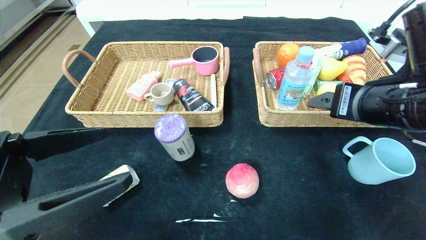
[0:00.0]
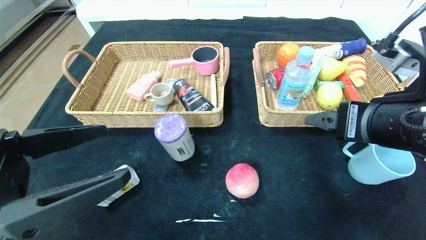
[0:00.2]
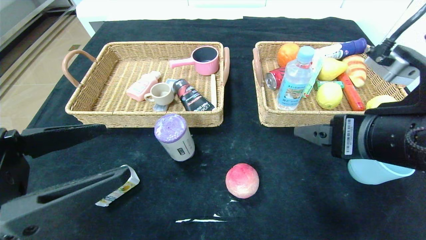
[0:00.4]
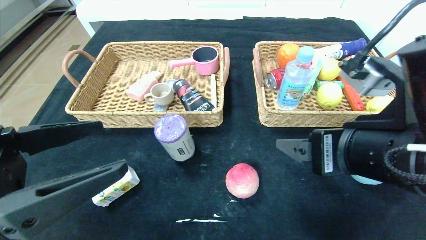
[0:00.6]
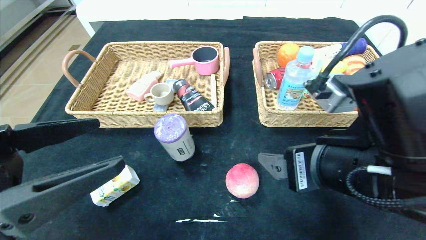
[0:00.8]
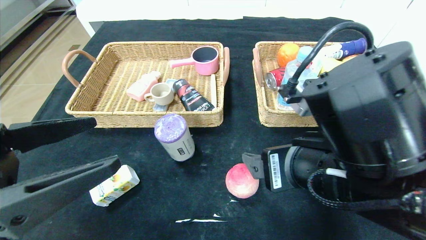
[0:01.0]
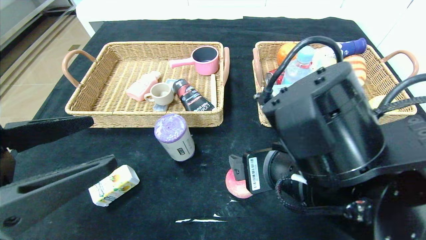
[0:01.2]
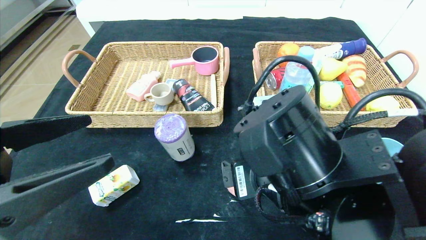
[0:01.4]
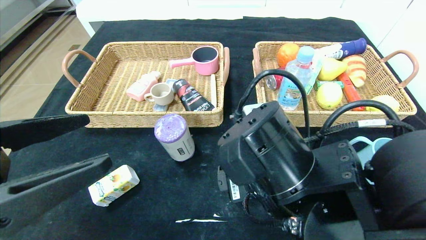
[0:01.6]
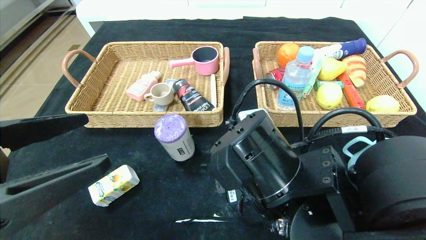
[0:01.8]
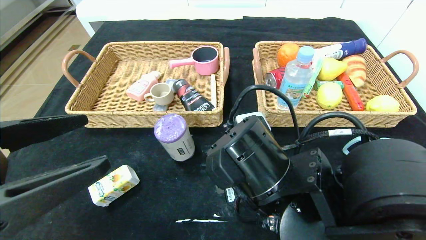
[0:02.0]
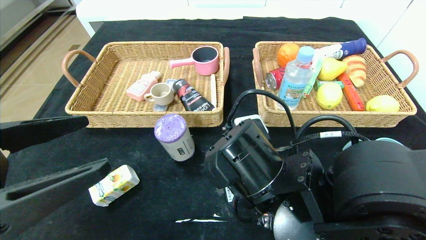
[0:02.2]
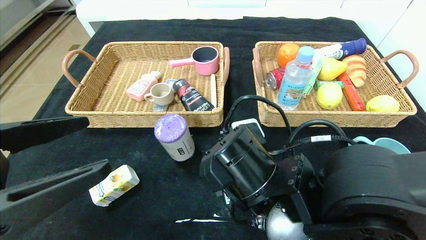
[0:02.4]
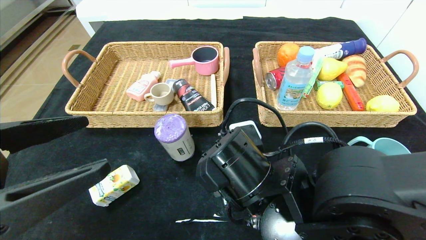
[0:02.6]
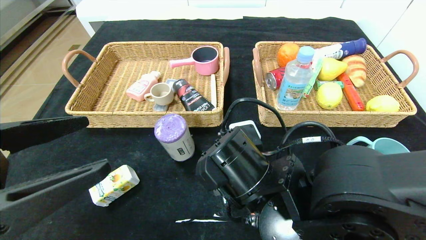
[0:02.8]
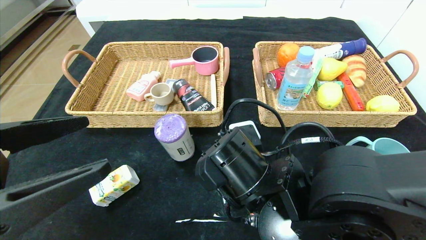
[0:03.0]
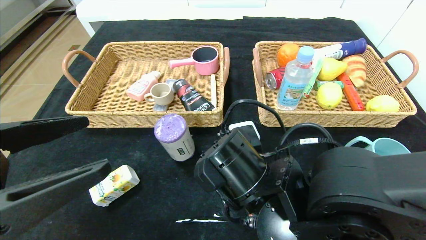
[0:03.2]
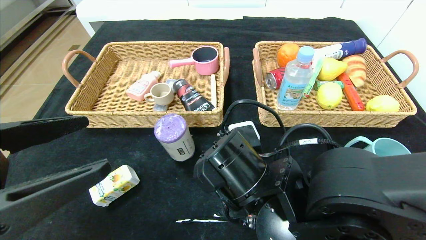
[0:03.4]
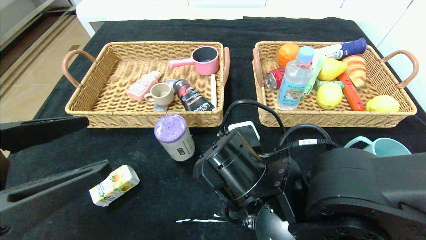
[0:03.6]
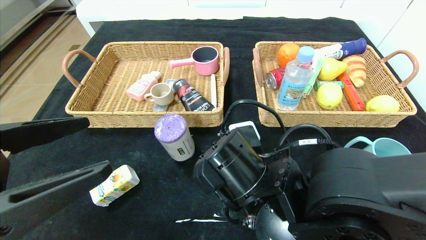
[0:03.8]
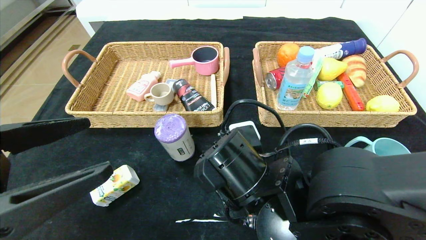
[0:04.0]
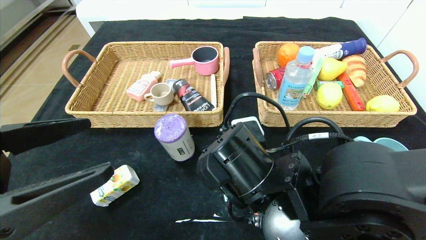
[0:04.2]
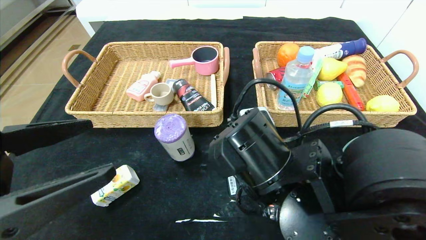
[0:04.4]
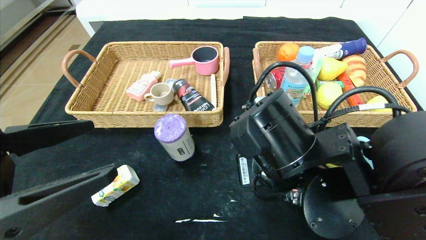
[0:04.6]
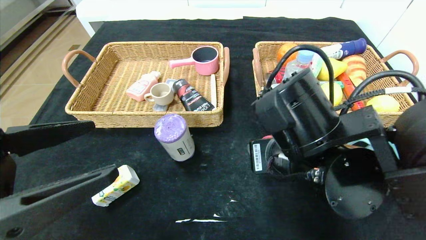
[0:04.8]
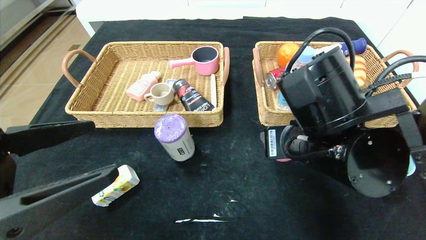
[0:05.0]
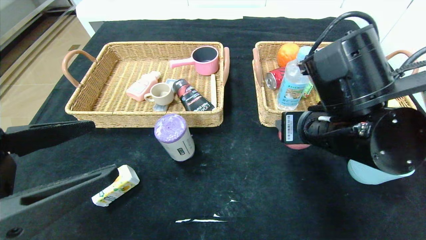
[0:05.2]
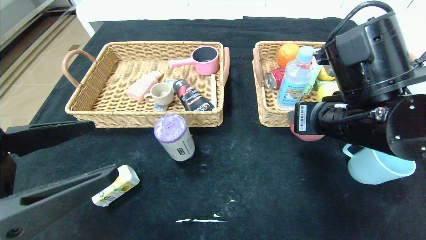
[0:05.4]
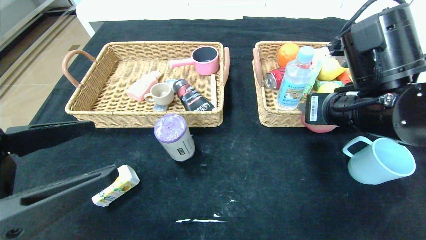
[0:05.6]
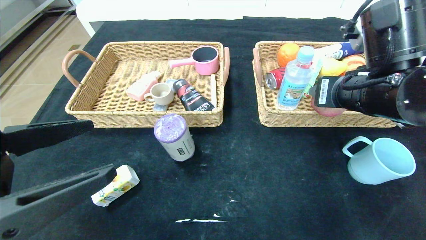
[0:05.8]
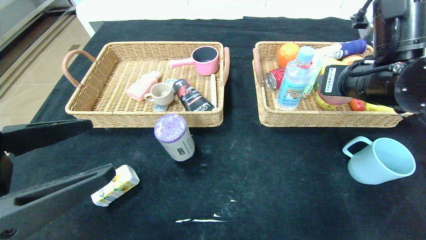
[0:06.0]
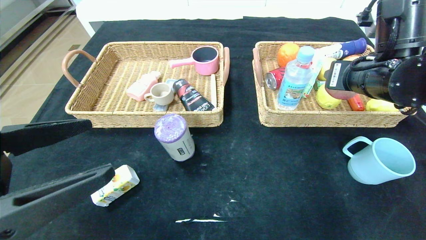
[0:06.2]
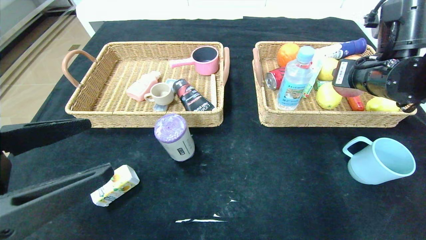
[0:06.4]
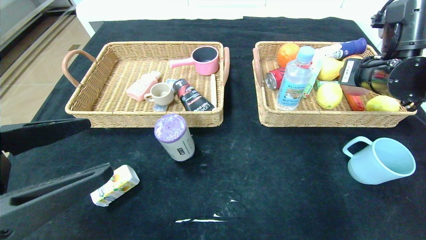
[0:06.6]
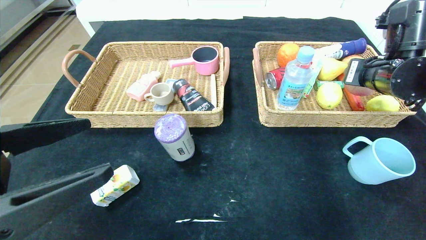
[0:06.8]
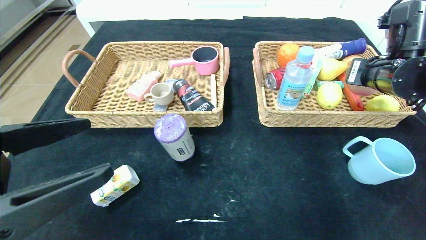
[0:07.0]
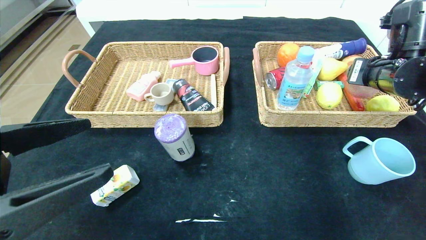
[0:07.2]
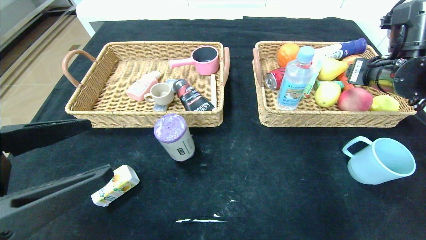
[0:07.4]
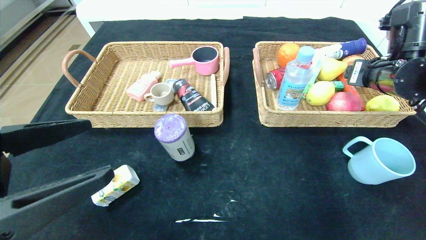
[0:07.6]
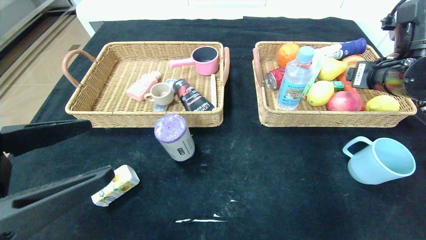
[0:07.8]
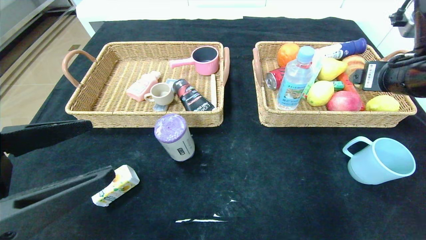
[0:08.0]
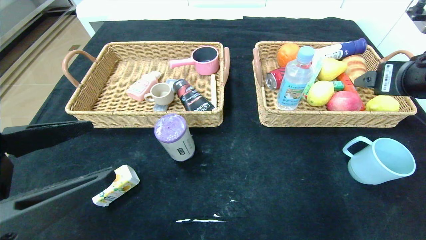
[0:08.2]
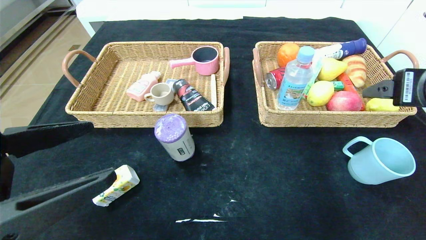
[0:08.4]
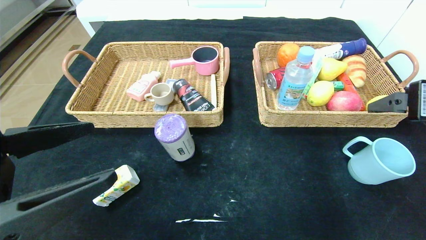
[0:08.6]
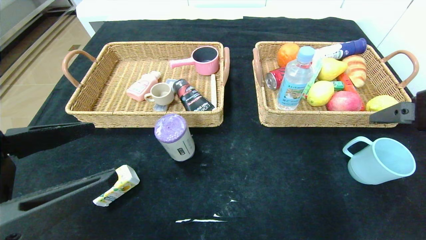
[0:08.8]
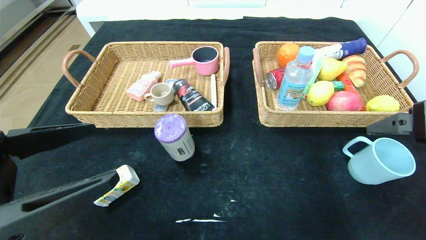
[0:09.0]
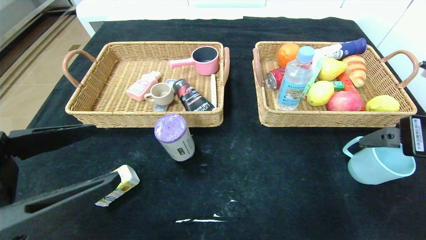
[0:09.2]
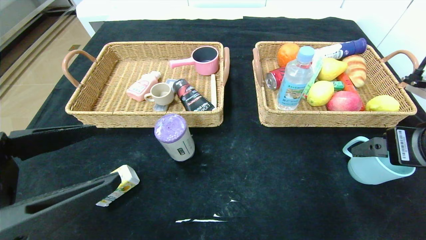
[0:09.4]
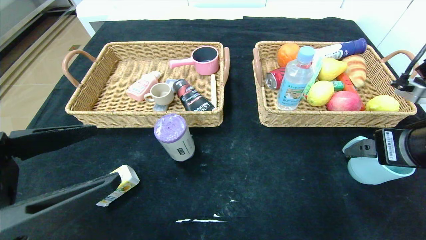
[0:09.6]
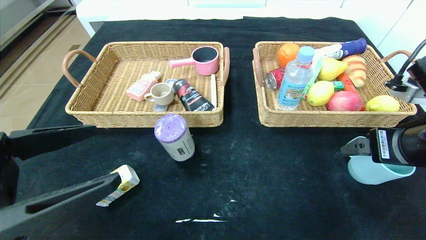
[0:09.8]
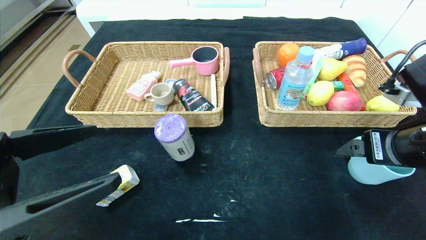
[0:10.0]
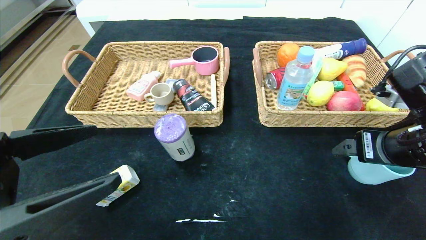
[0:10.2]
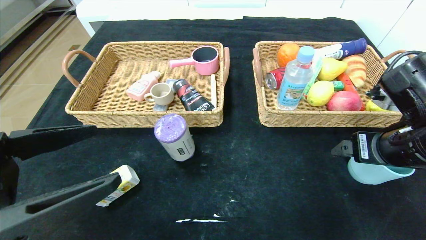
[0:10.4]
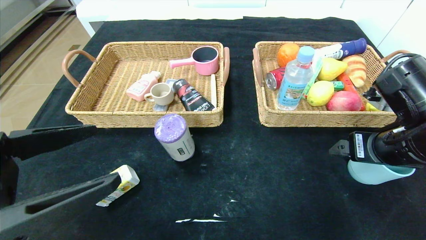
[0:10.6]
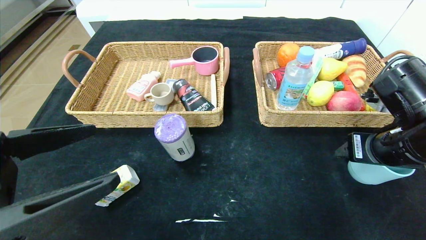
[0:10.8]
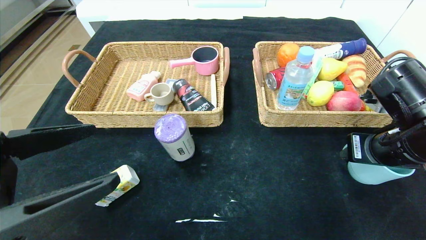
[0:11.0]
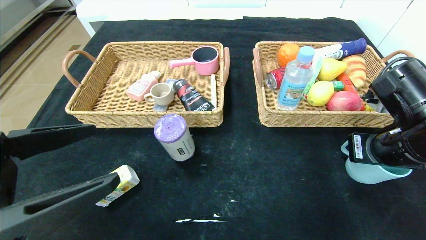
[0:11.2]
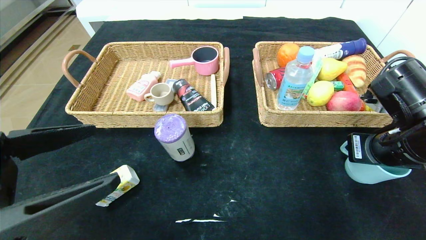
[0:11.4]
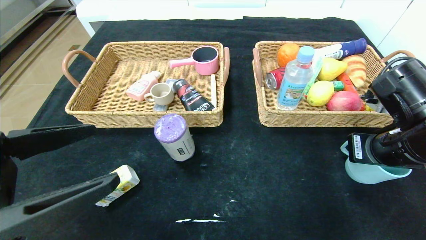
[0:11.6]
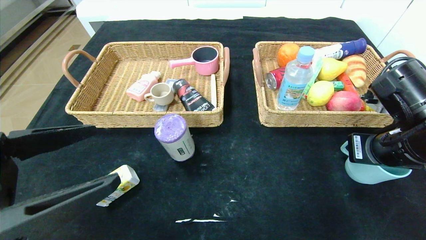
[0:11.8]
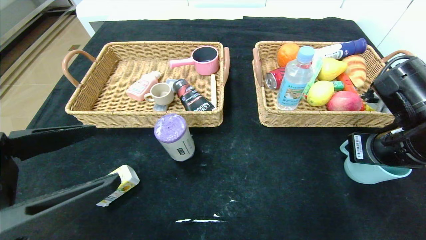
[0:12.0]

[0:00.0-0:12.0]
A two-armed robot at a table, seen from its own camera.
Step, 0:00.8 to 0:09.2: Pick up the peach and put it in the right basket.
0:00.0 to 0:01.6: The right gripper shifts roughly 15 cm to the left and downward.
0:01.6 to 0:04.4: The grippers move only a little.
0:04.4 to 0:06.0: The right gripper moves to the right, upward and forward, some 20 cm.
0:06.0 to 0:07.6: The right gripper travels to the right by roughly 5 cm.
0:07.6 to 0:09.0: The right gripper goes roughly 15 cm backward.
0:09.0 to 0:10.4: The right gripper is displaced downward and forward by about 10 cm.
0:10.4 to 0:12.0: The right gripper closes up.

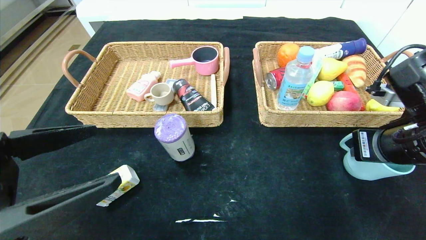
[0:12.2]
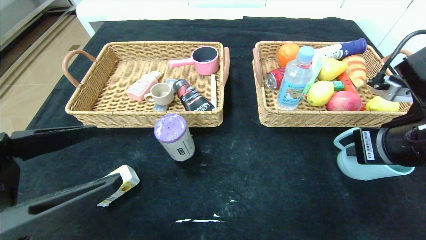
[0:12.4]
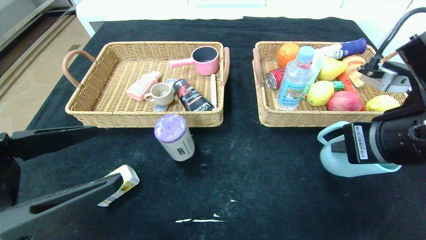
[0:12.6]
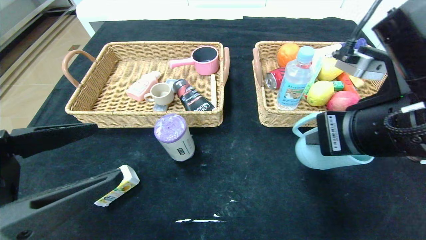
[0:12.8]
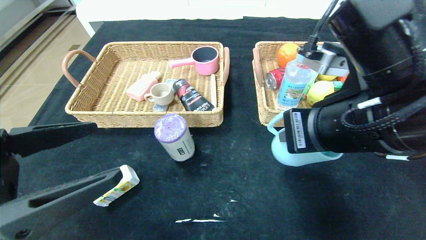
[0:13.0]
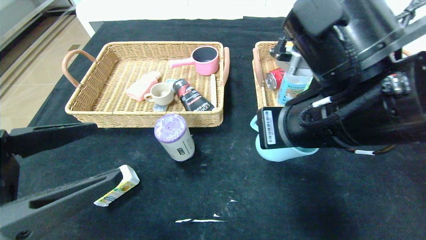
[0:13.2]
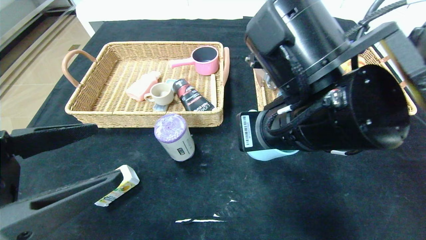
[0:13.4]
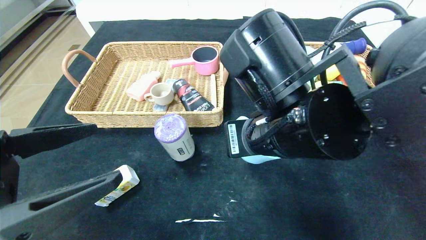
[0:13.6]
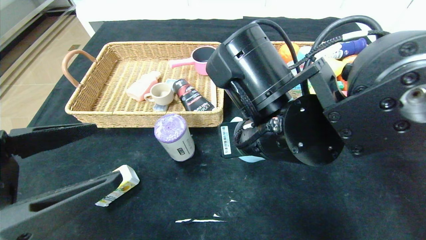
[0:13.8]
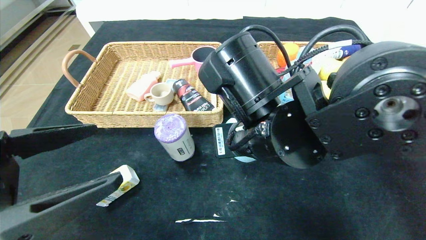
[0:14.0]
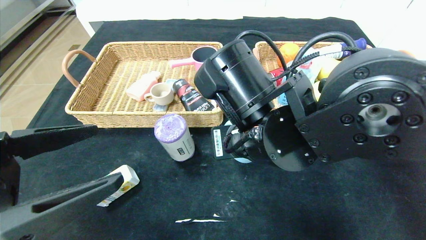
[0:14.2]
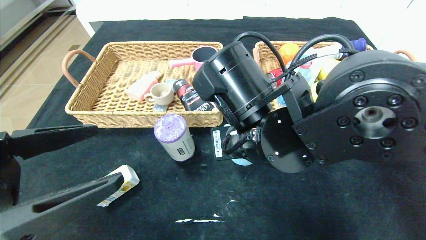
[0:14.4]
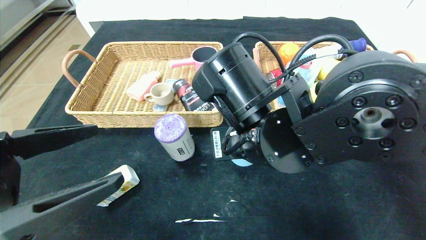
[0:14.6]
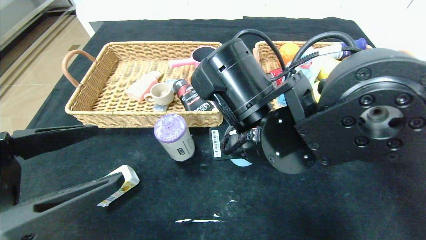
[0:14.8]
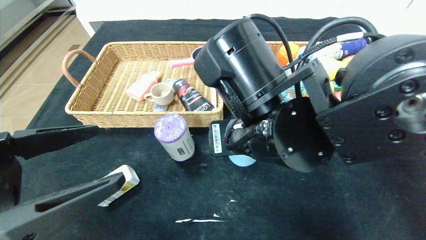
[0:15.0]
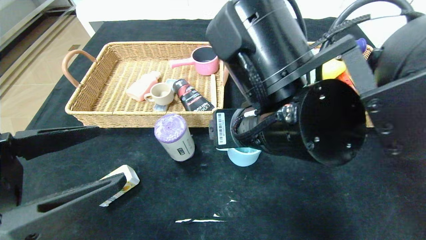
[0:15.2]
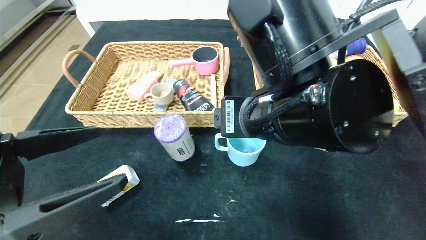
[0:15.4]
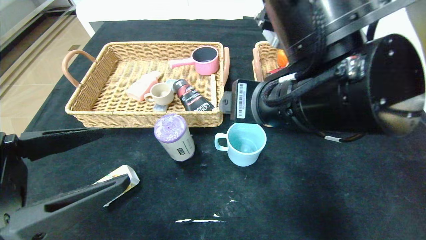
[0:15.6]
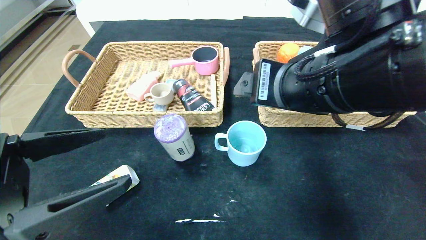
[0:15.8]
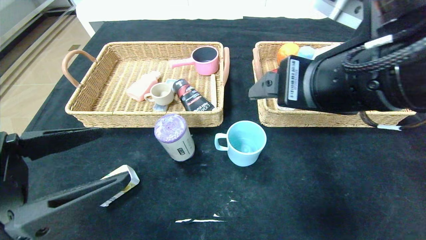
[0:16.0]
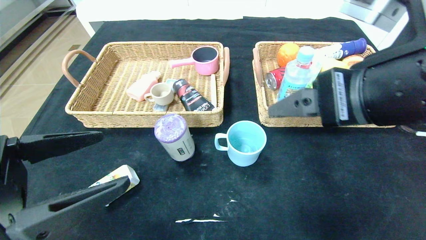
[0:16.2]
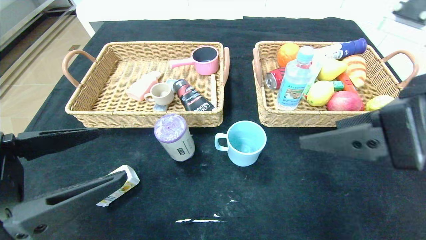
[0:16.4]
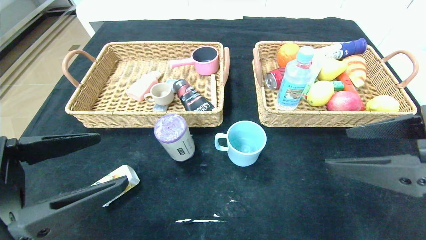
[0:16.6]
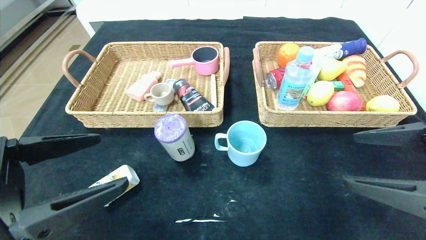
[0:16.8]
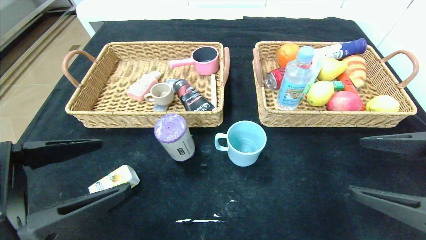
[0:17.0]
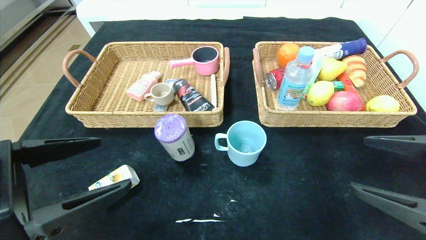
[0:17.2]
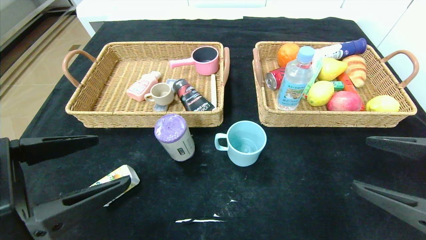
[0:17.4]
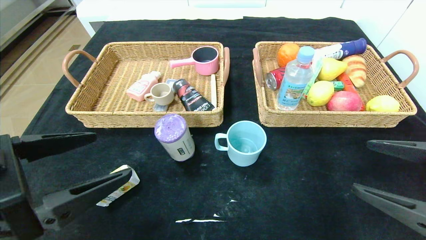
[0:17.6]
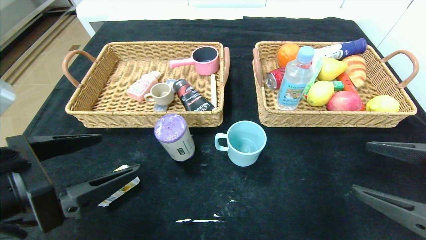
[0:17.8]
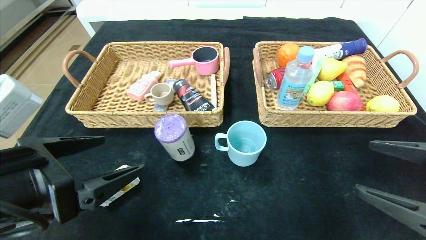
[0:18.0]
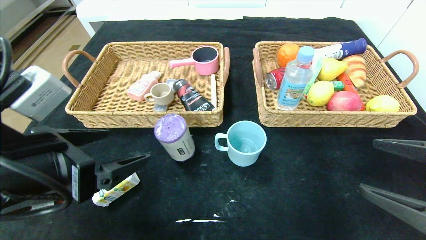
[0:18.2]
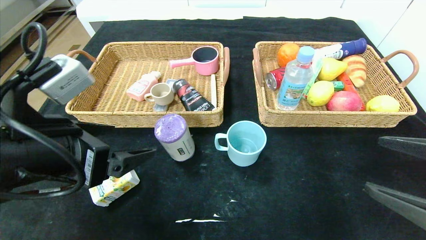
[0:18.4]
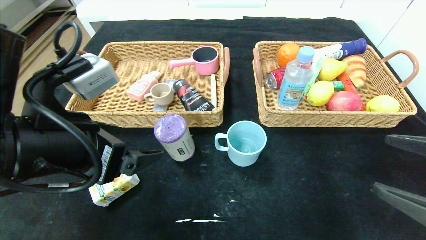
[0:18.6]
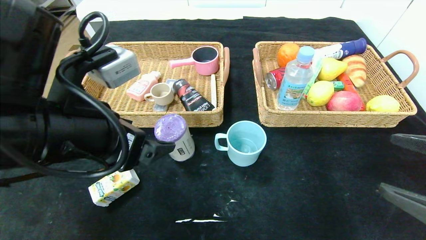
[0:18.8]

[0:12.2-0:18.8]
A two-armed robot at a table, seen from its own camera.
Step, 0:12.2 to 0:15.6: Place the blue cup in the center of the table.
0:12.2 to 0:13.8: The right gripper travels to the left by some 20 cm.
0:13.8 to 0:15.4: The right gripper opens its fingers.
0:15.4 to 0:17.2: The right gripper moves to the right, some 20 cm.
0:17.2 to 0:18.8: The left gripper goes about 10 cm forward and to the right.
